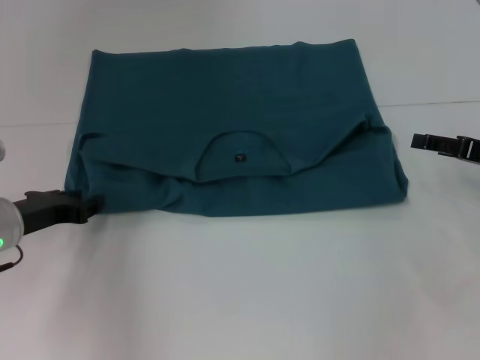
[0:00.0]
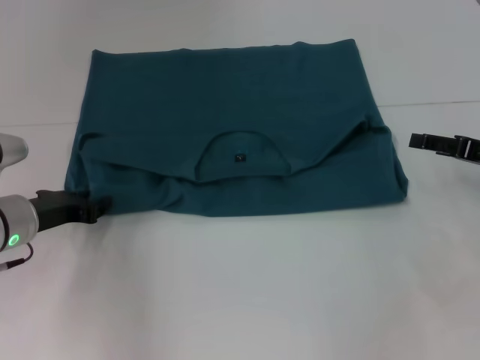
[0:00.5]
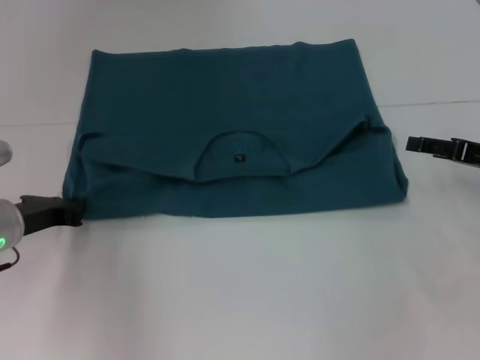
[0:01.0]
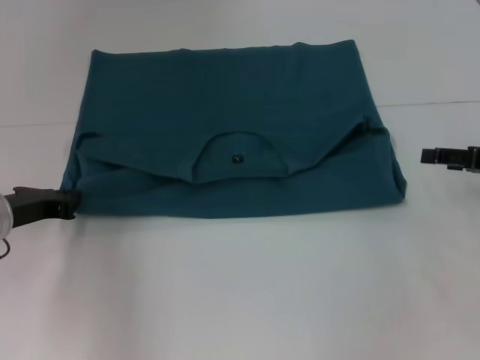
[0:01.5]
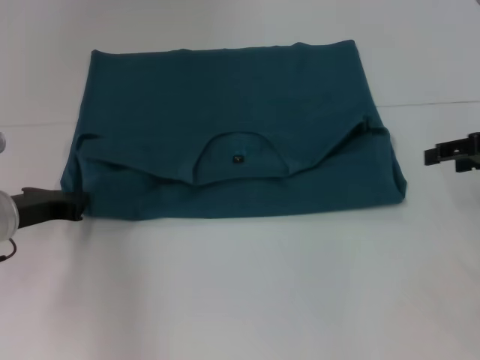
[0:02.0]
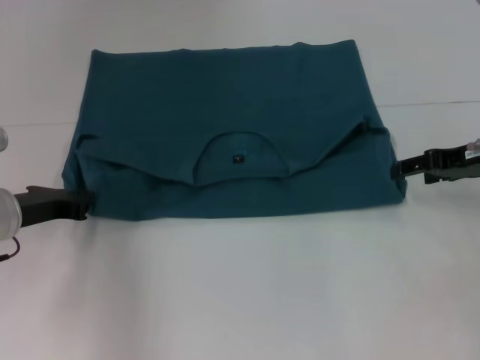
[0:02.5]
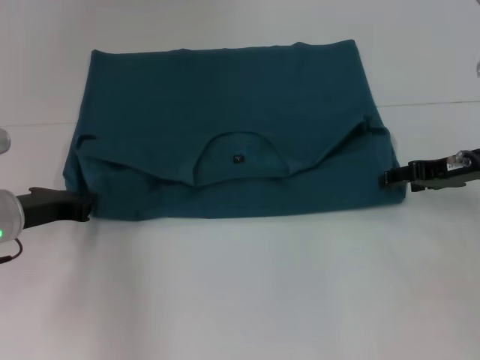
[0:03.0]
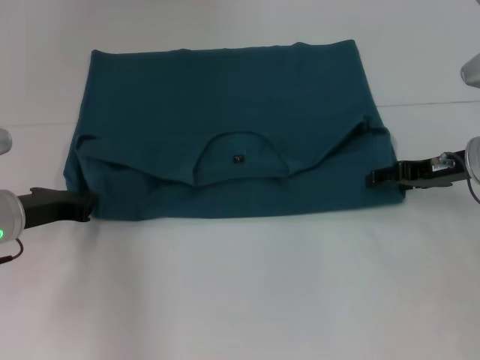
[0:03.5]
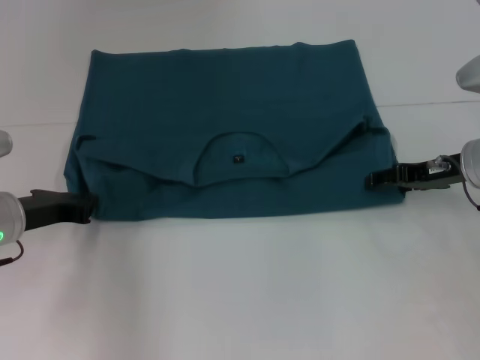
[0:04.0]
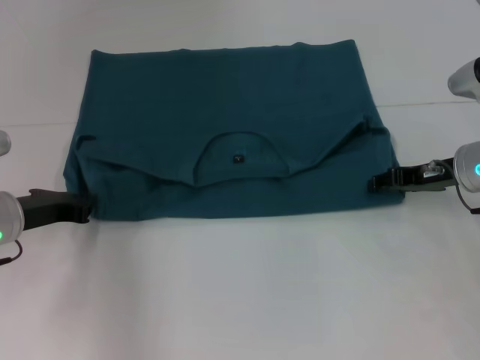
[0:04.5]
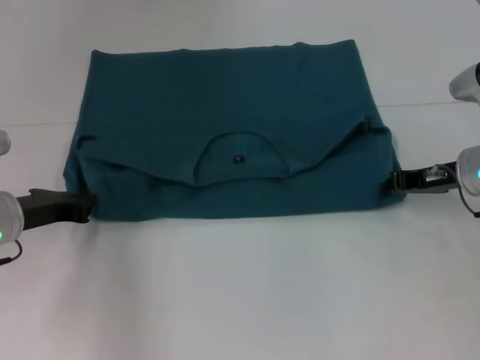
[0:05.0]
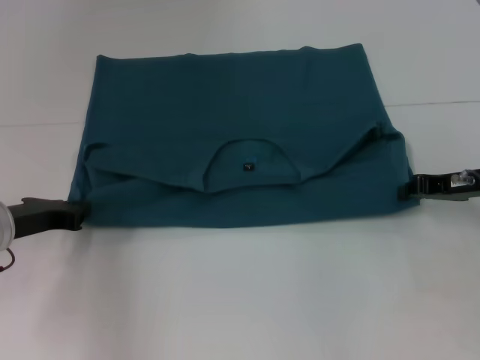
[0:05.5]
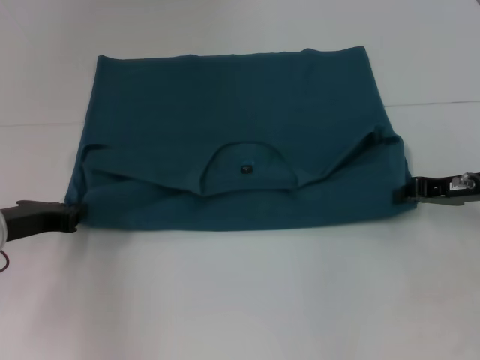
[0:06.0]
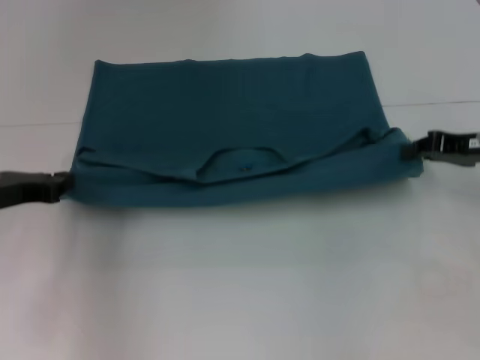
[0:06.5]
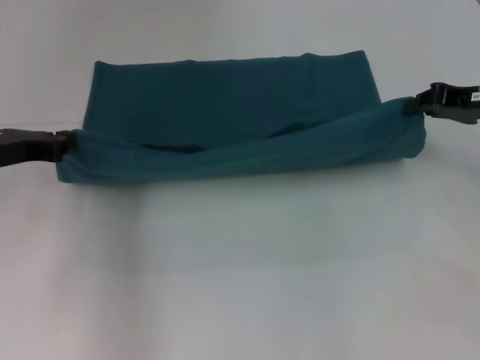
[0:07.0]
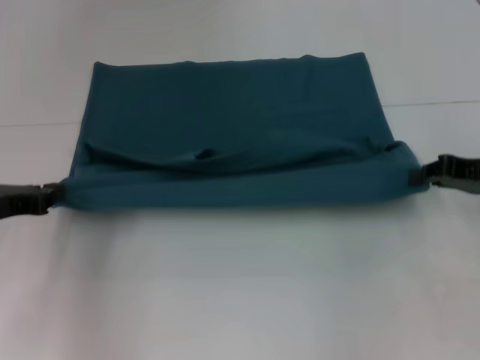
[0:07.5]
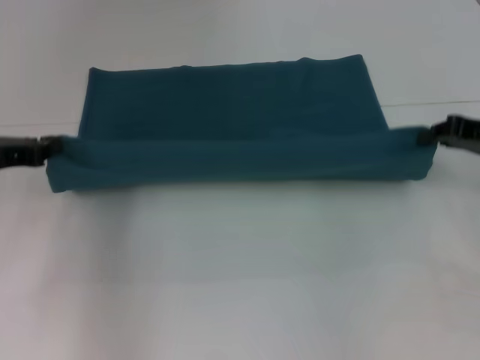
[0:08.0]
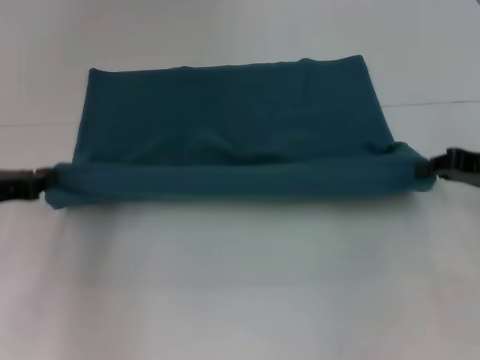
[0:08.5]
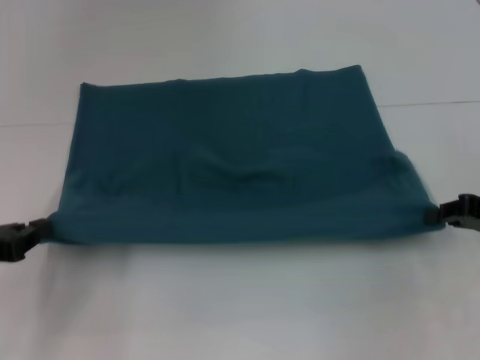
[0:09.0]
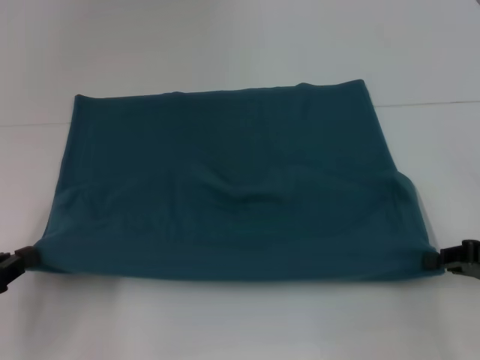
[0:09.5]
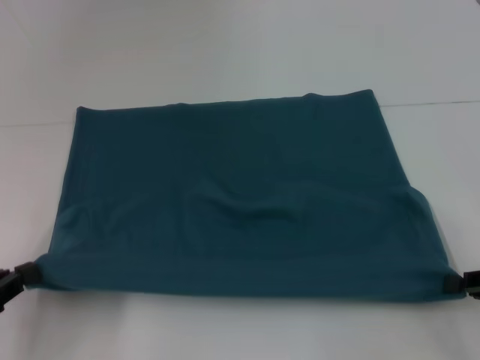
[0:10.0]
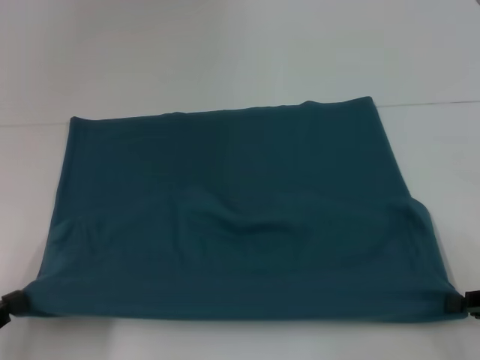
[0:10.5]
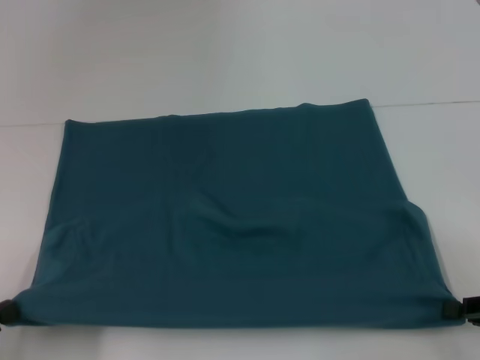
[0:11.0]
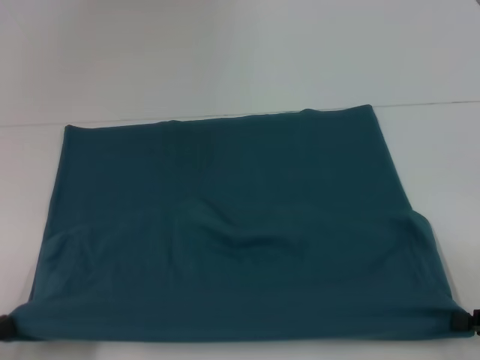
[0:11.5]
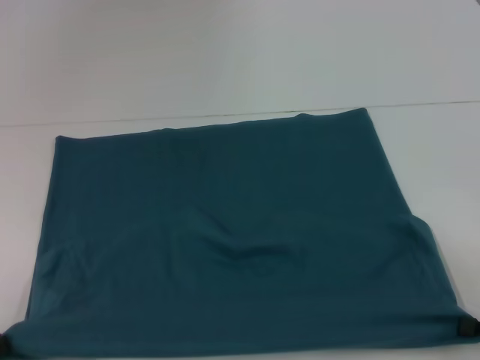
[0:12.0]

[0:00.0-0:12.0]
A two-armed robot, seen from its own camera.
0:00.0 to 0:02.0: The left gripper closes its fingers, while the right gripper moves upward, approximately 5 cm.
0:02.0 to 0:04.0: The right gripper goes some 10 cm downward and to the left.
0:04.0 to 0:06.0: The right gripper closes its fingers.
0:06.0 to 0:08.0: The grippers both shift upward by roughly 5 cm.
0:08.0 to 0:10.0: The left gripper heads backward, covering about 15 cm, while the right gripper travels backward and downward by approximately 15 cm.
0:10.0 to 0:12.0: The right gripper shifts by roughly 5 cm, while the left gripper is displaced backward by approximately 10 cm.

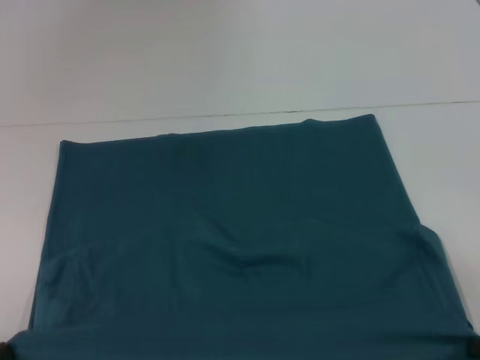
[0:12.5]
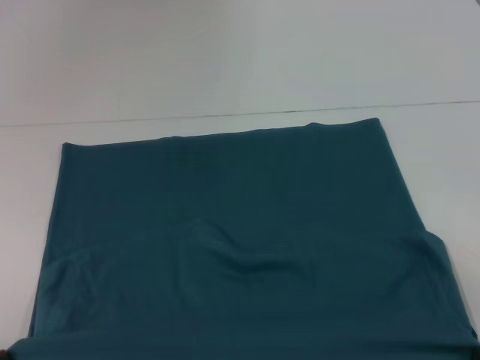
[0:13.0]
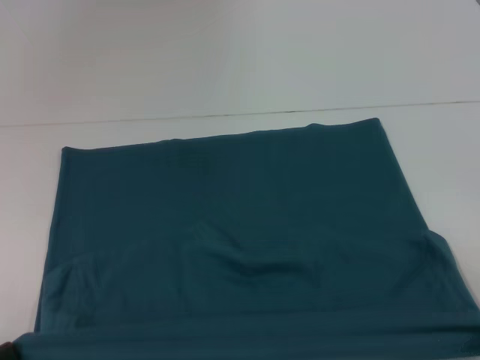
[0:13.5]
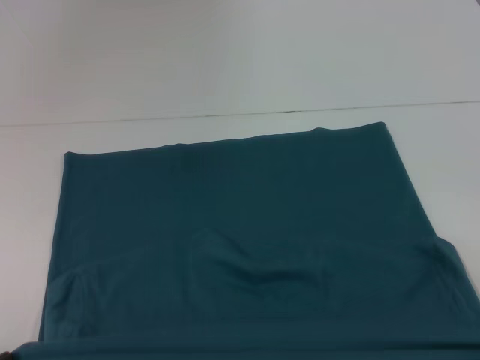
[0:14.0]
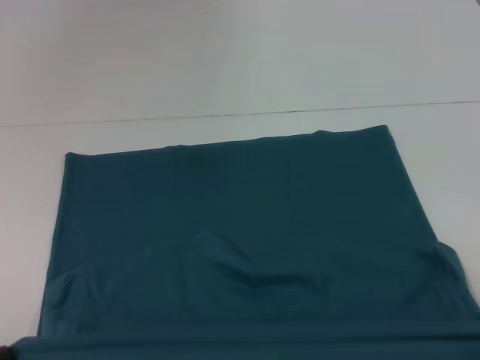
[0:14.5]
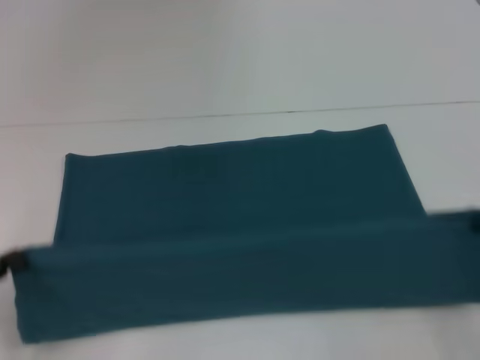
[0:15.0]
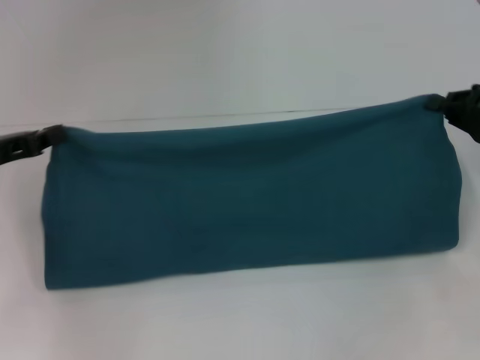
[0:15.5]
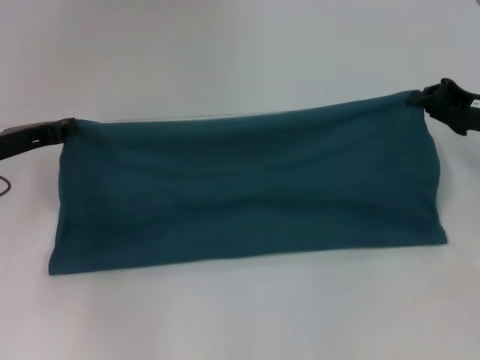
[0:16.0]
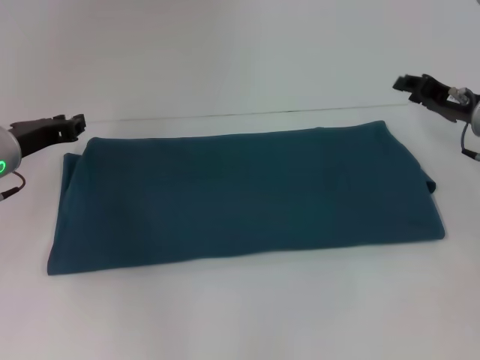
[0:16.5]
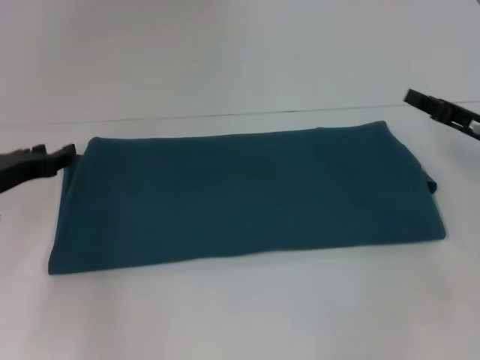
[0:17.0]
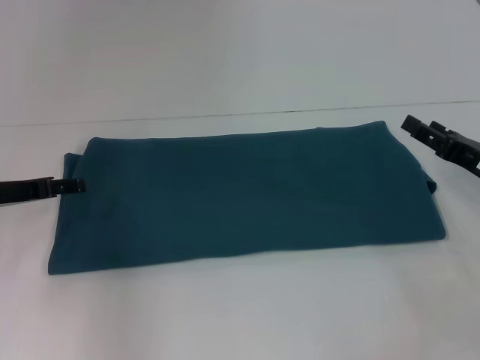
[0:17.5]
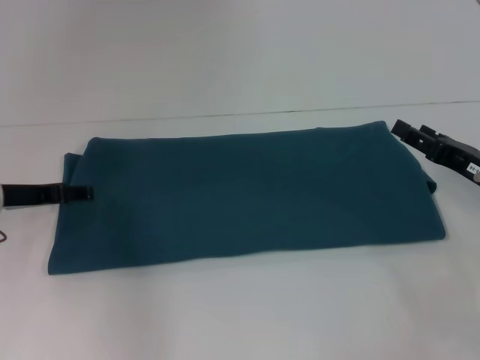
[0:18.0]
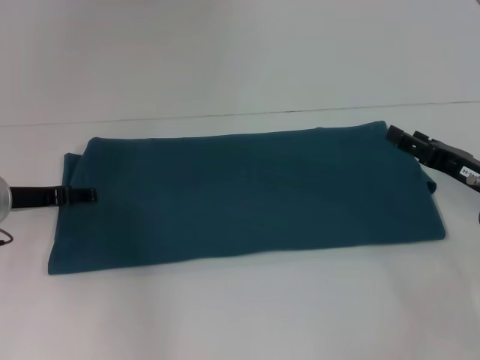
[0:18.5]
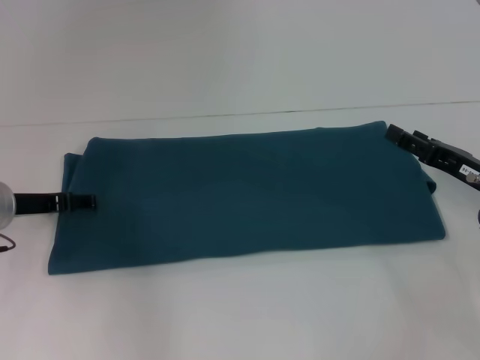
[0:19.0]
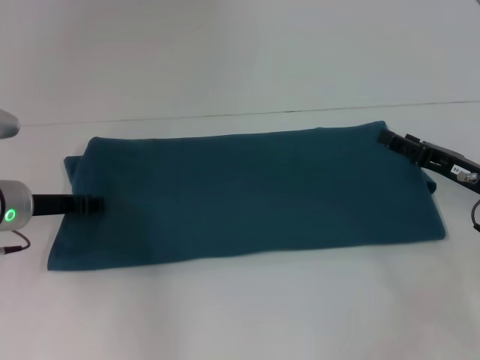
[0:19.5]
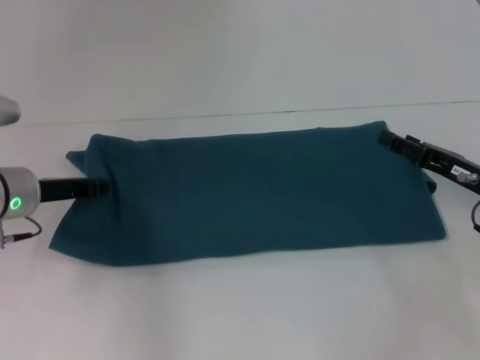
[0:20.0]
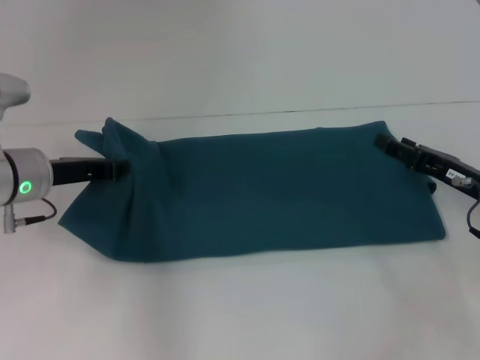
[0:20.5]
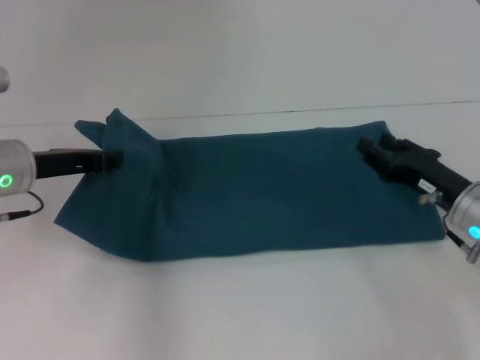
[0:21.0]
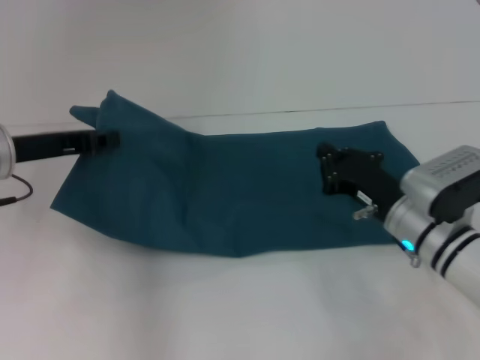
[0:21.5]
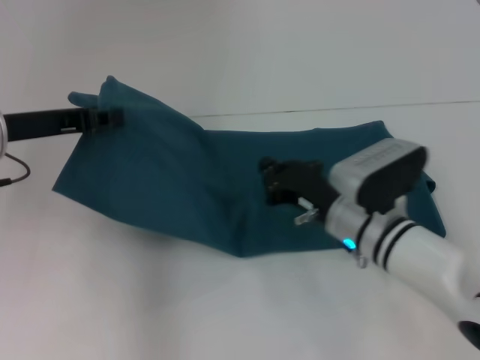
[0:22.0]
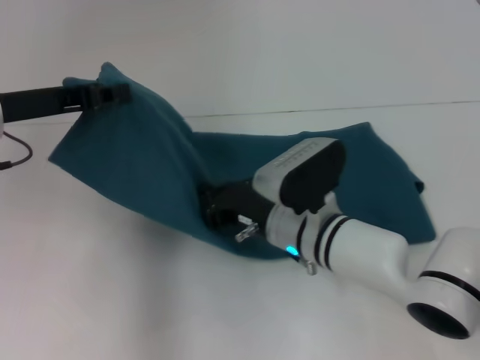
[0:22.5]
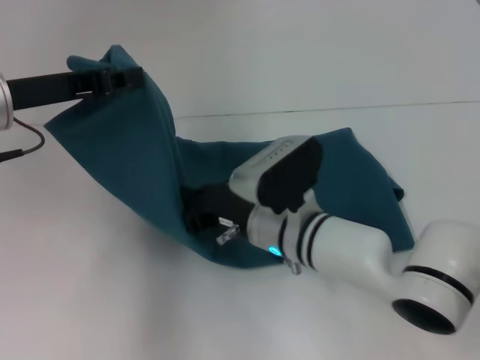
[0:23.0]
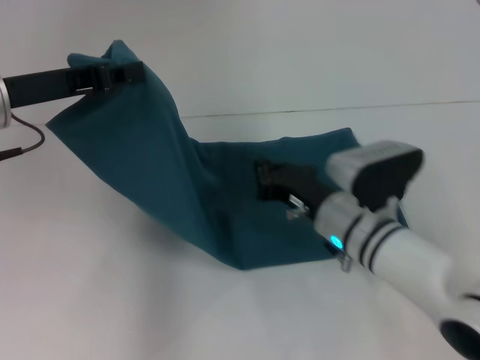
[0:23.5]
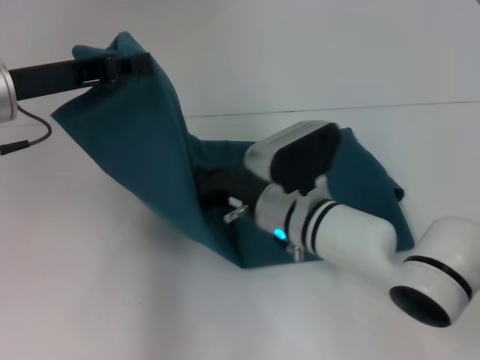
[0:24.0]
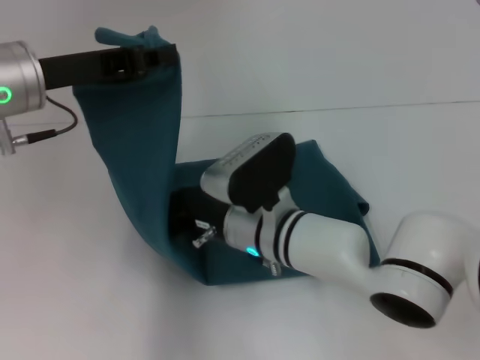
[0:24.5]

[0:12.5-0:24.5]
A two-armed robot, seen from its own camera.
Step, 0:14.0 to 0:16.0: Fold the clothes to the left.
Step, 0:14.0 to 0:16.0: Fold the clothes to the right.
0:12.5 to 0:14.5: The grippers make only small movements.
0:14.5 to 0:16.5: The two grippers go about 30 cm forward.
0:16.5 to 0:18.5: The right gripper is displaced backward by roughly 10 cm, and opens. The left gripper opens up.
0:18.5 to 0:20.5: The left gripper closes.
0:20.5 to 0:22.5: The left gripper is displaced upward by some 10 cm. The right gripper goes some 20 cm to the left, and closes.

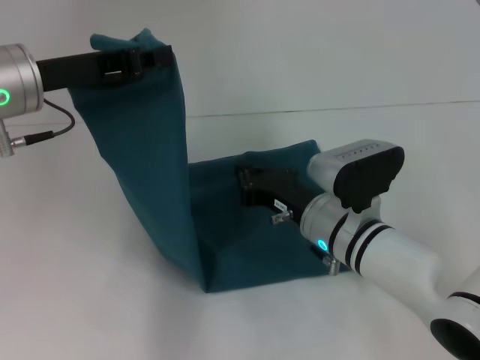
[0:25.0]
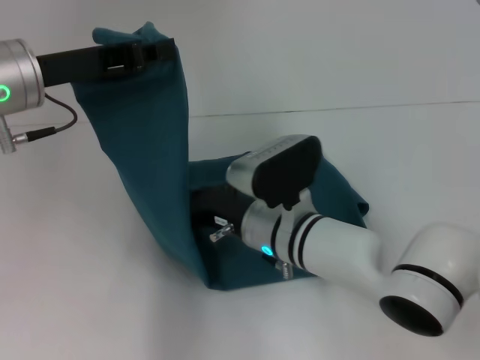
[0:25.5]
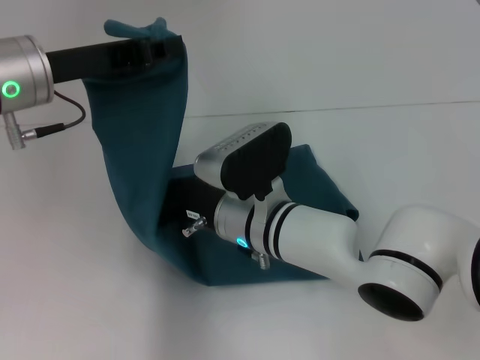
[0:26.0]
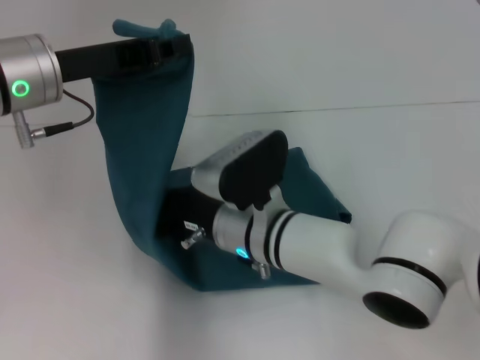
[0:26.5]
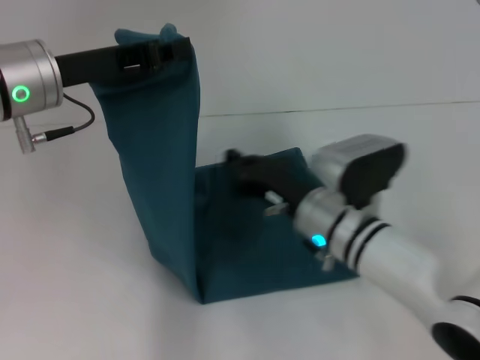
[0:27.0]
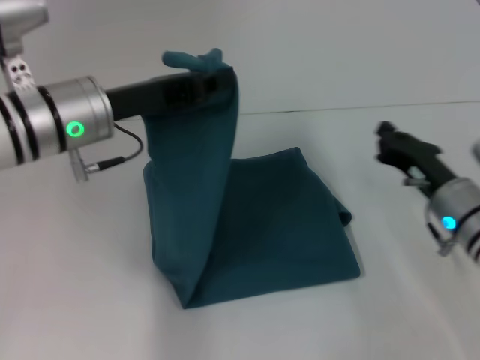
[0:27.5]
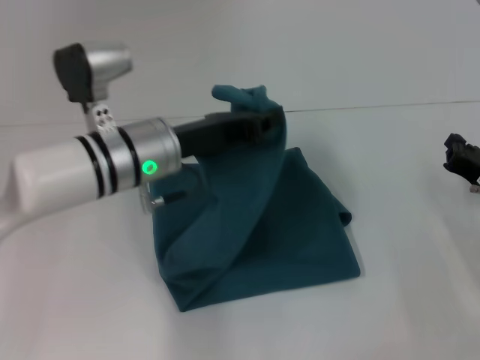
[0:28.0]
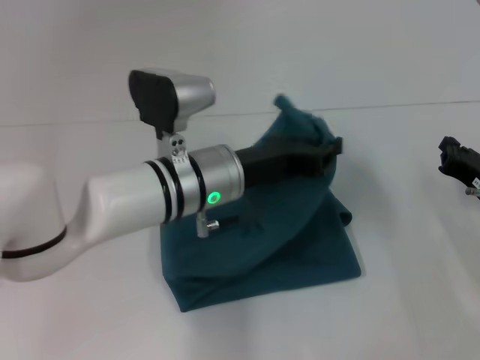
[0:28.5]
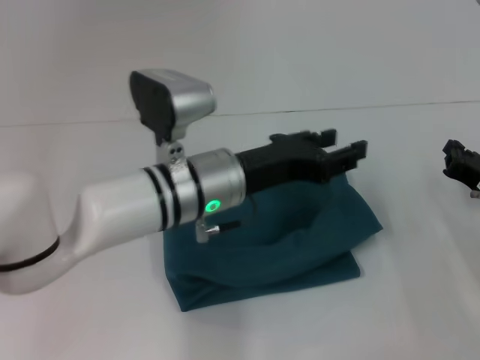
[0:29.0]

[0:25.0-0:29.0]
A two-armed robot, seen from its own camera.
0:25.0 to 0:27.0: The right gripper travels to the left and back again, roughly 10 cm each way.
0:27.0 to 0:29.0: The right gripper travels to the right by some 20 cm. Meanwhile the left gripper moves to the right and downward, some 15 cm.
